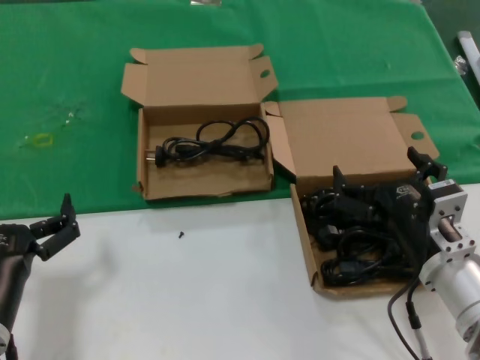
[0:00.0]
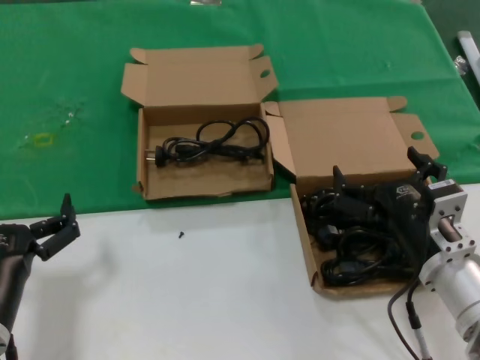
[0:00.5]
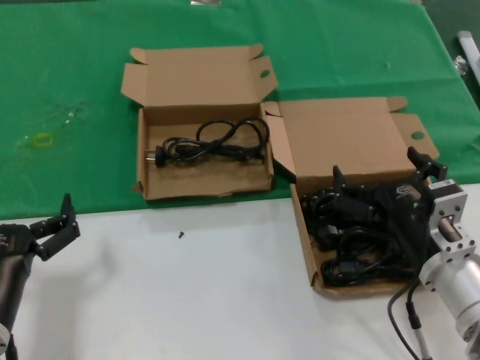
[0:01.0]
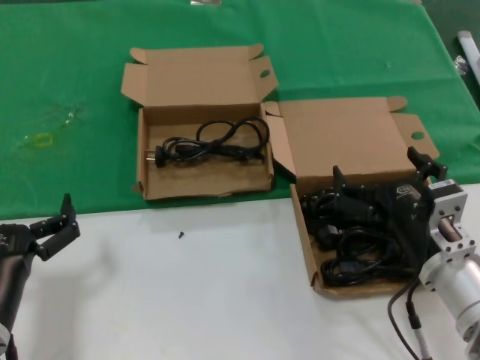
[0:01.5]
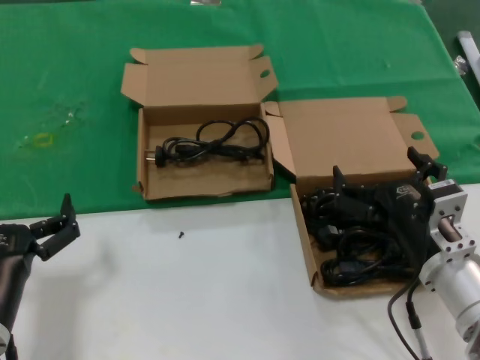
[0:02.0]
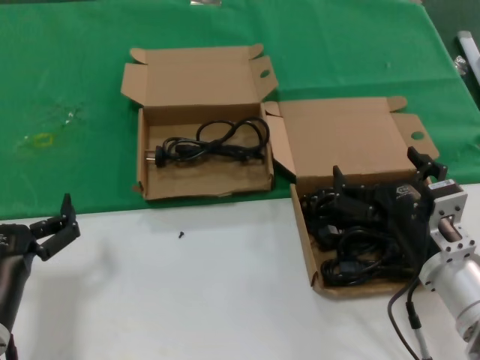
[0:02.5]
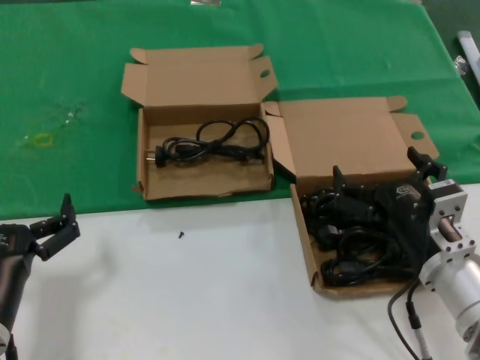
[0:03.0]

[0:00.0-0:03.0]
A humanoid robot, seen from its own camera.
Task of the whole recording: take the parts from the box containing them and put them into an empty box.
0:00.0 to 0:03.0: Neither hand changes place.

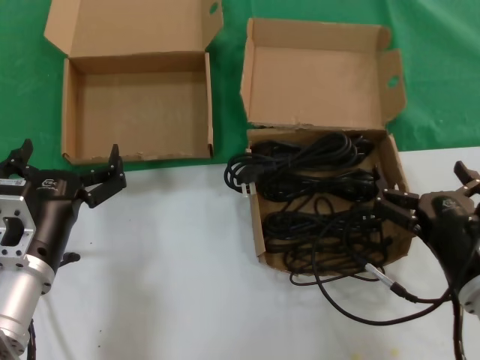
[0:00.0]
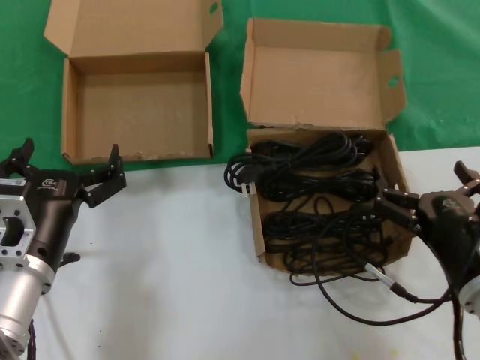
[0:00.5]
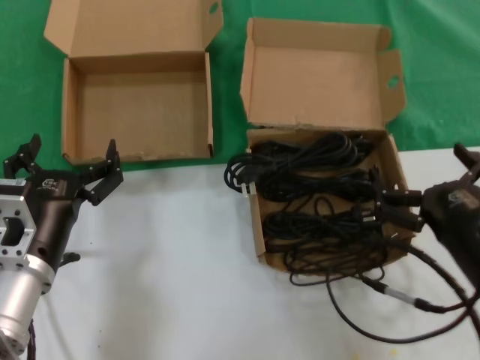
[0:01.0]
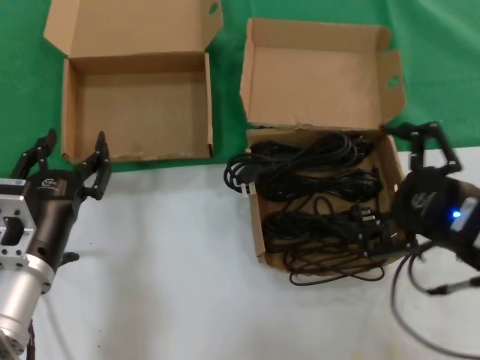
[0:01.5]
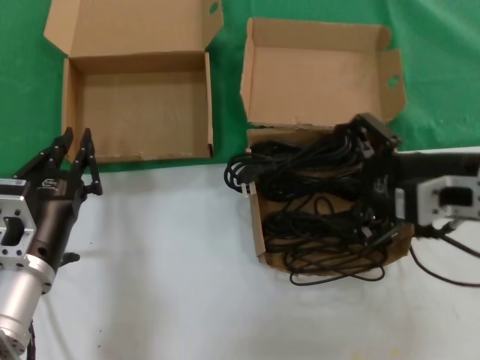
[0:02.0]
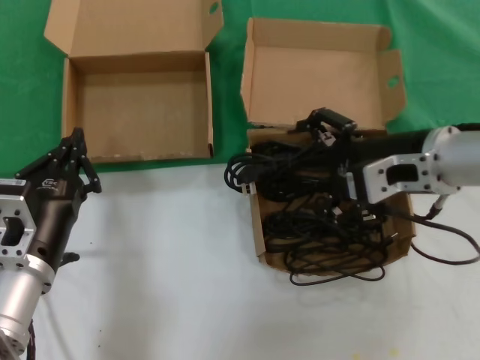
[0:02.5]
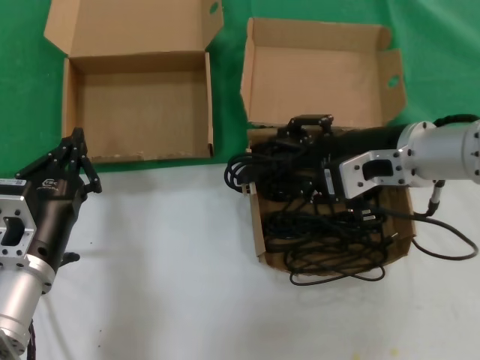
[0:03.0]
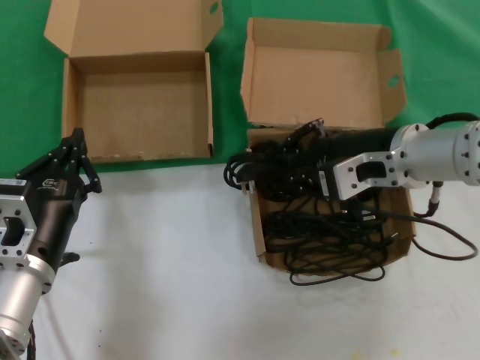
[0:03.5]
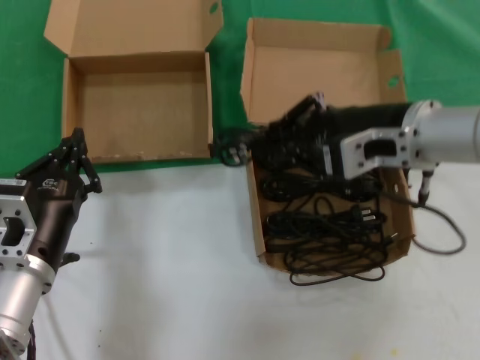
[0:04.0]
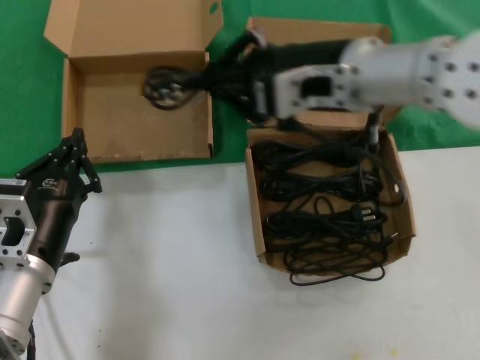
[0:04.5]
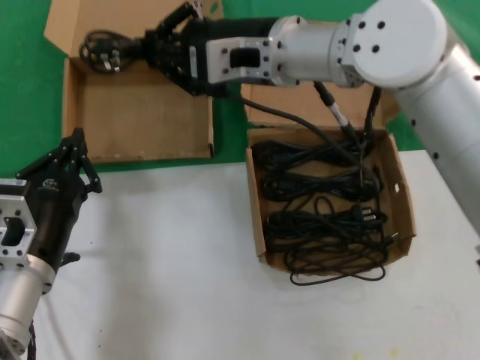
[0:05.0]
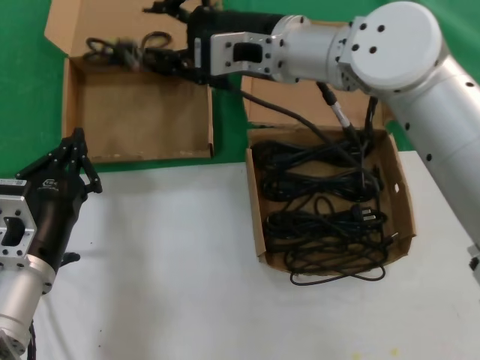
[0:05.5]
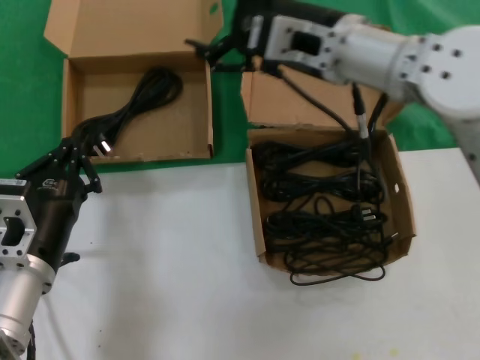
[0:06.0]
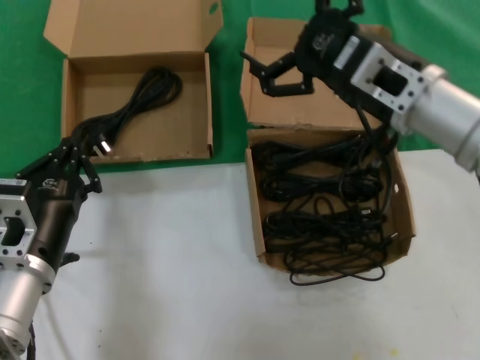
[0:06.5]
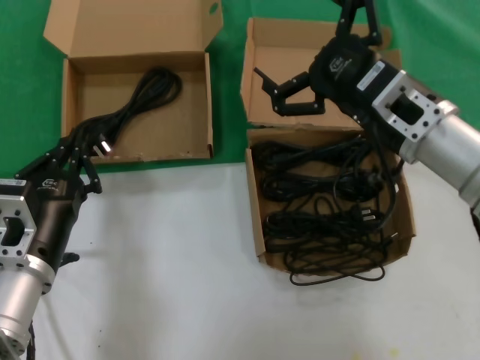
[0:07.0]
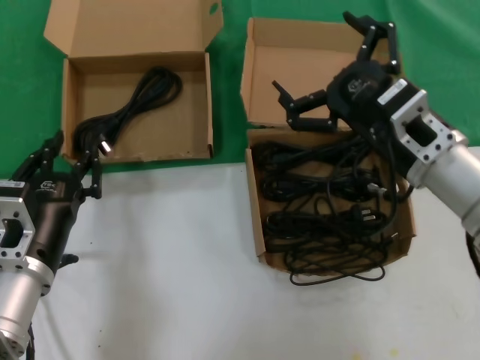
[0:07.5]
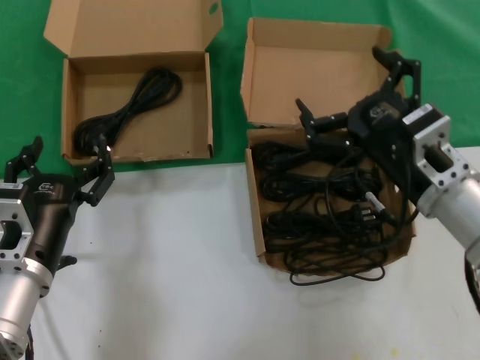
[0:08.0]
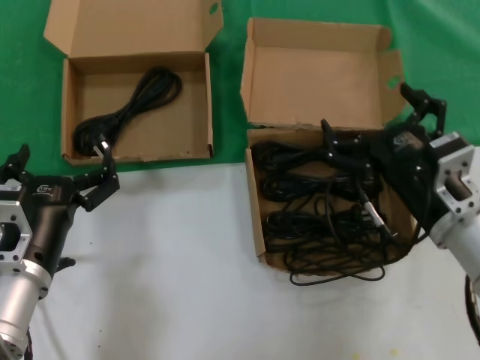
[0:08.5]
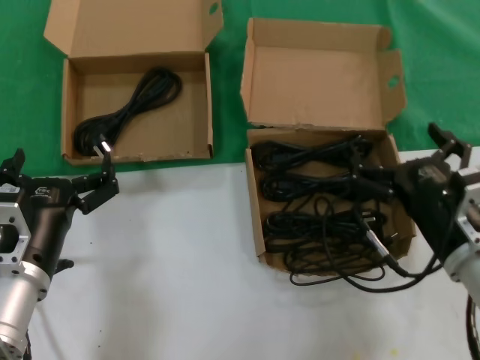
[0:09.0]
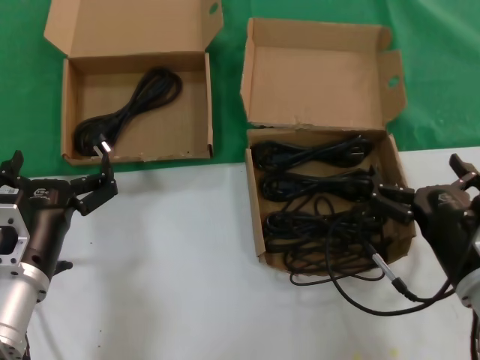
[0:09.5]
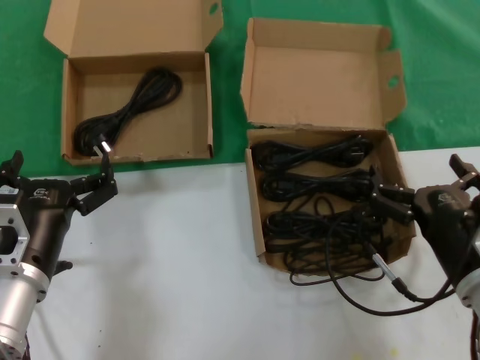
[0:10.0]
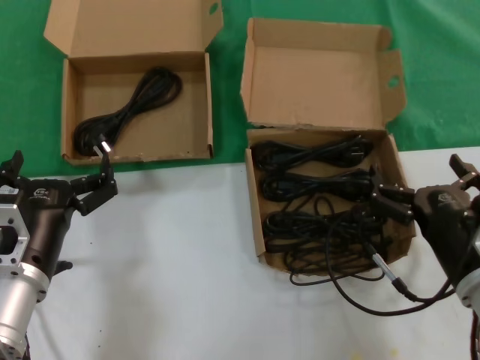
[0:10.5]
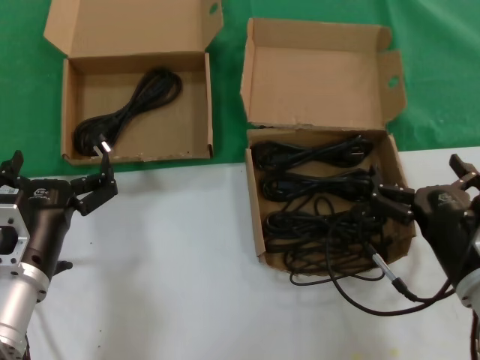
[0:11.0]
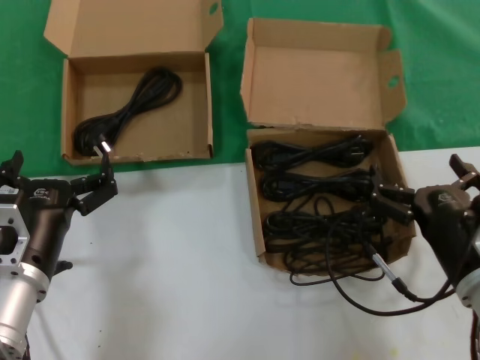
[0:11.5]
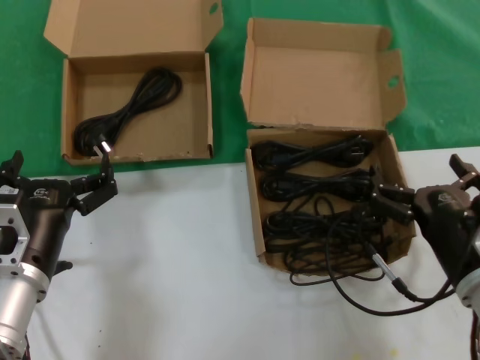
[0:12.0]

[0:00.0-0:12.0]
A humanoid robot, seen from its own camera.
Task of the whole recording: take the parts from the box containing them and put them into an empty box.
Step, 0:00.0 to 0:03.5: Grasp the data cable.
Step, 0:04.0 to 0:05.5: Place the data cable in the another box.
0:00.0 to 0:02.0: The right hand shifts some 15 cm upward.
0:02.0 to 0:04.0: The right hand heads to the left and forward, covering roughly 10 cm.
0:04.0 to 0:06.0: The right hand moves to the left and forward, about 10 cm.
0:06.0 to 0:08.0: The right hand goes about 20 cm downward, backward and to the right.
0:08.0 to 0:10.0: The right hand travels downward and backward by roughly 10 cm.
0:10.0 to 0:12.0: Neither hand changes place.

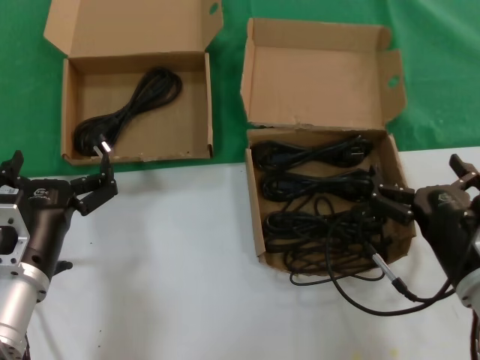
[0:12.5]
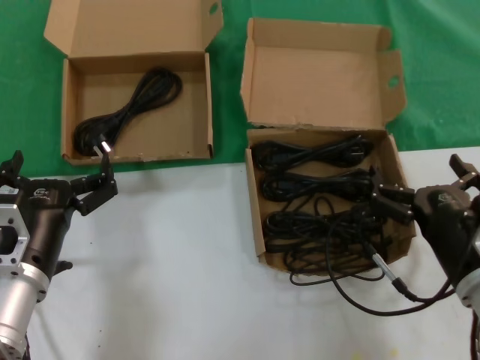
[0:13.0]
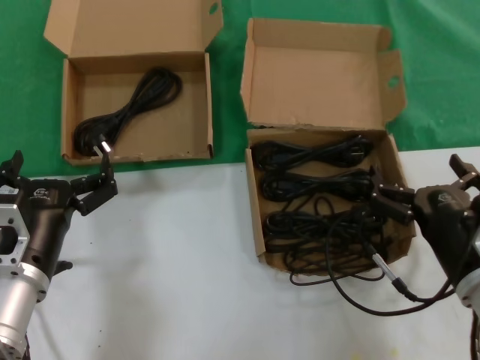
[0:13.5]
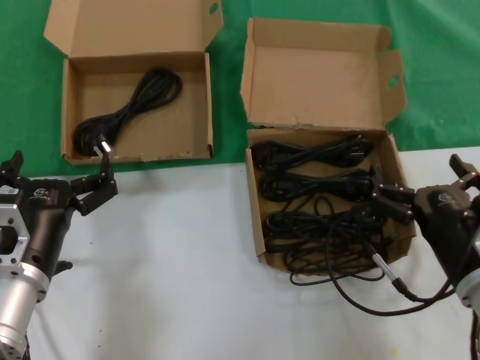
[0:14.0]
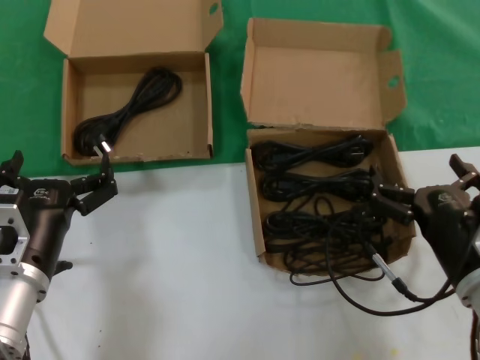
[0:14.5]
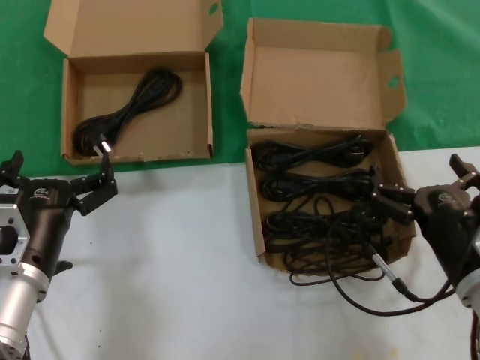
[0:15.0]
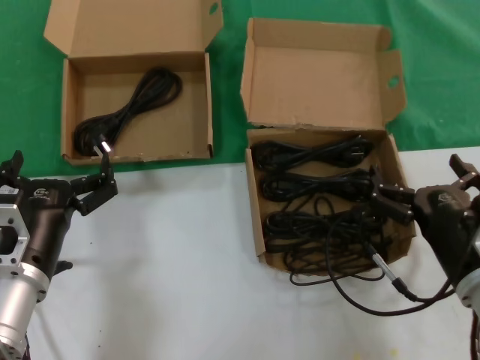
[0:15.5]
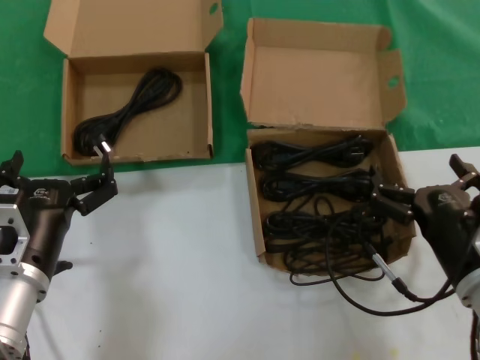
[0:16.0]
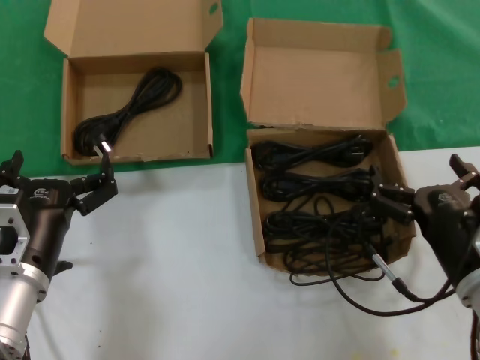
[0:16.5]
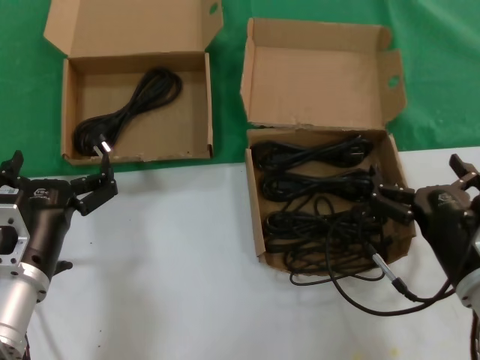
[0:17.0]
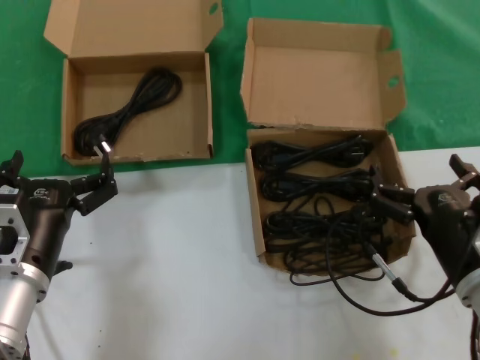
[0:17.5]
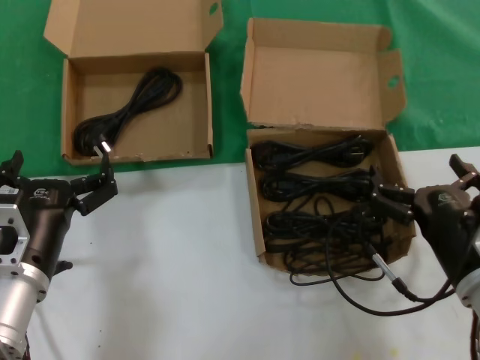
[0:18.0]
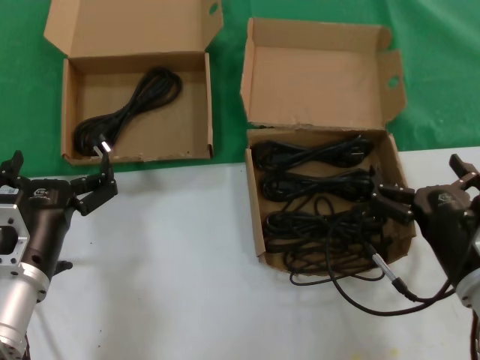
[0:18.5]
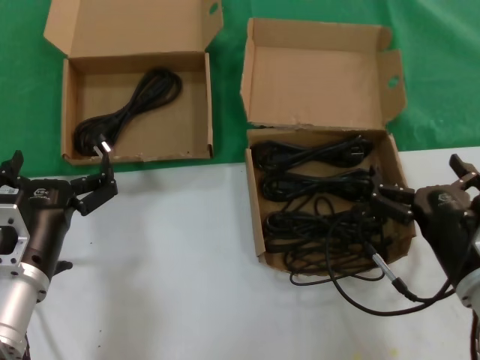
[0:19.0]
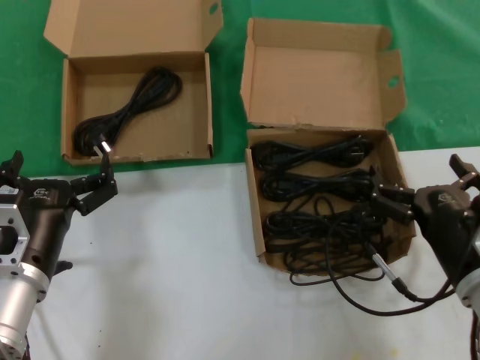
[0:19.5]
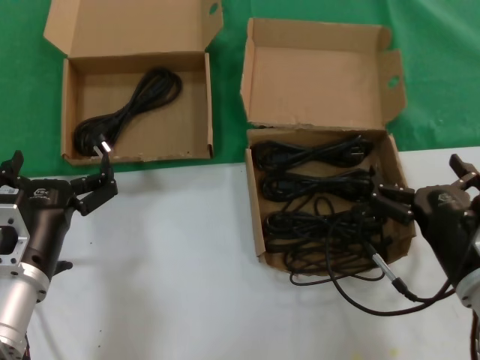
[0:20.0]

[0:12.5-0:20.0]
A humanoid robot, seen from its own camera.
Task of the whole recording: take the parts from the box containing them and put them into an empty box.
0:12.5 to 0:20.0: Both hands stay about where they are.
